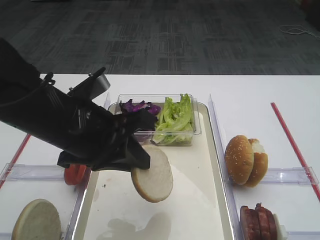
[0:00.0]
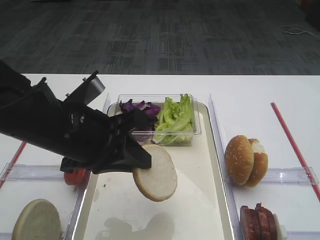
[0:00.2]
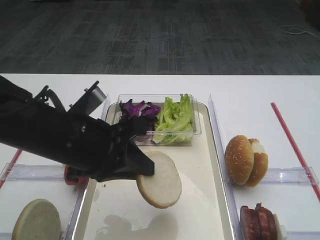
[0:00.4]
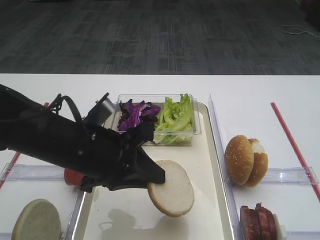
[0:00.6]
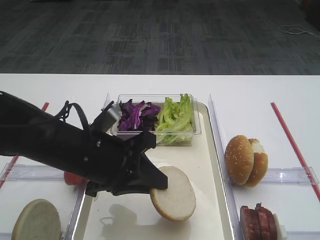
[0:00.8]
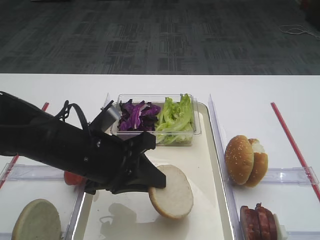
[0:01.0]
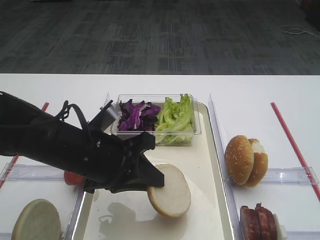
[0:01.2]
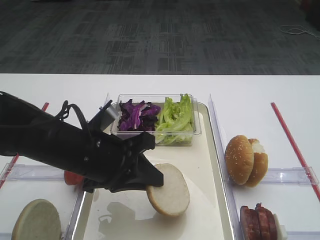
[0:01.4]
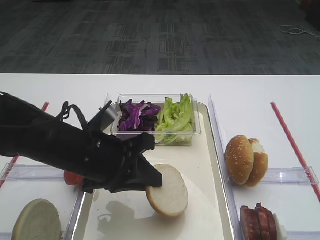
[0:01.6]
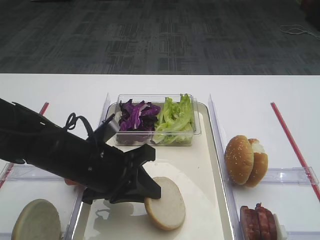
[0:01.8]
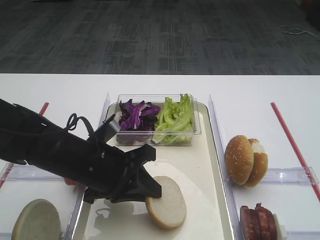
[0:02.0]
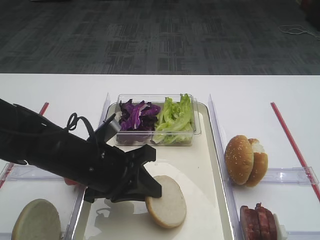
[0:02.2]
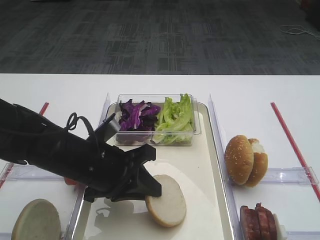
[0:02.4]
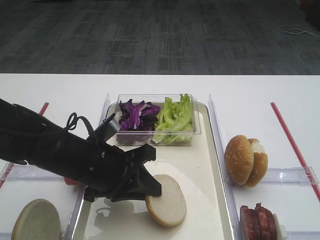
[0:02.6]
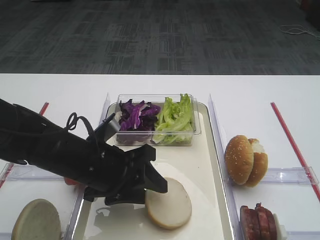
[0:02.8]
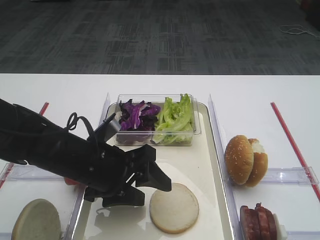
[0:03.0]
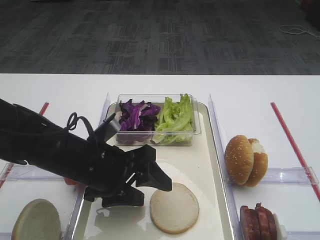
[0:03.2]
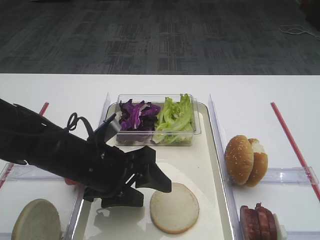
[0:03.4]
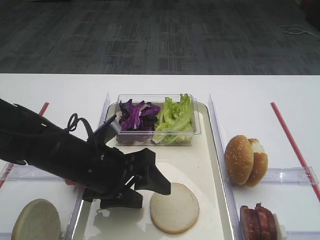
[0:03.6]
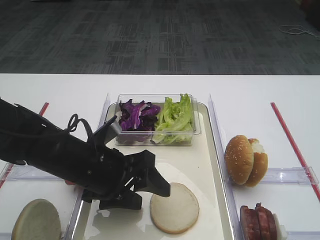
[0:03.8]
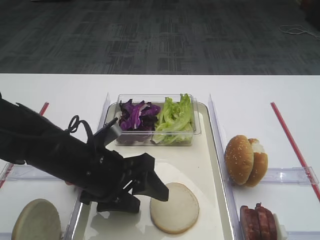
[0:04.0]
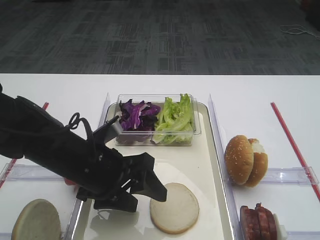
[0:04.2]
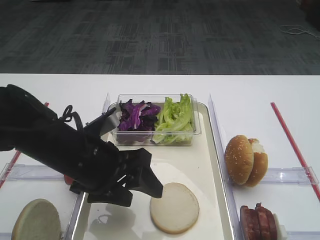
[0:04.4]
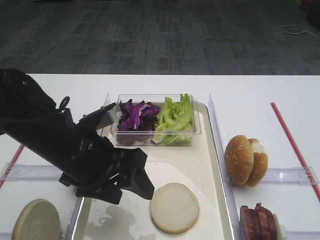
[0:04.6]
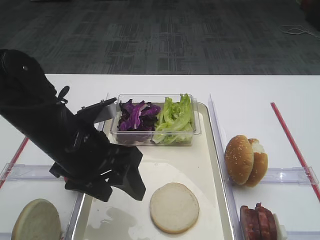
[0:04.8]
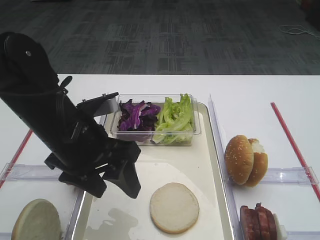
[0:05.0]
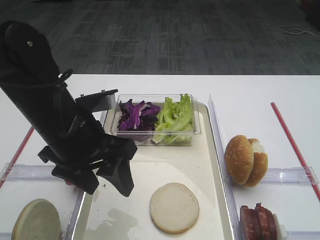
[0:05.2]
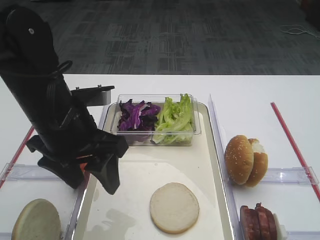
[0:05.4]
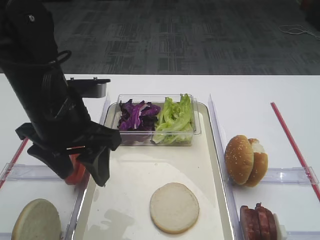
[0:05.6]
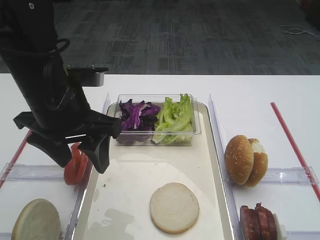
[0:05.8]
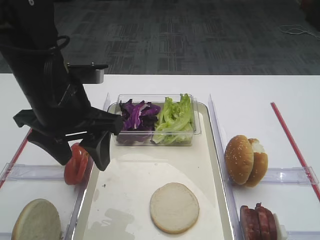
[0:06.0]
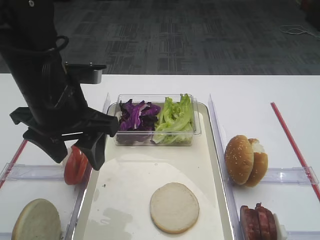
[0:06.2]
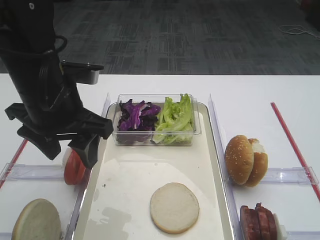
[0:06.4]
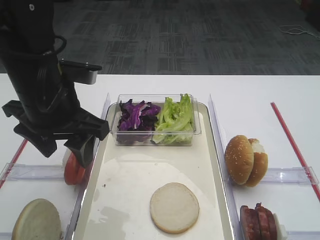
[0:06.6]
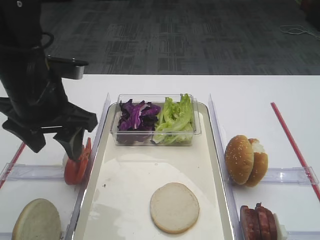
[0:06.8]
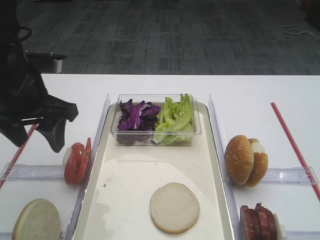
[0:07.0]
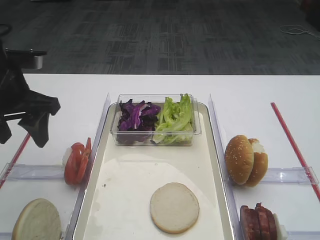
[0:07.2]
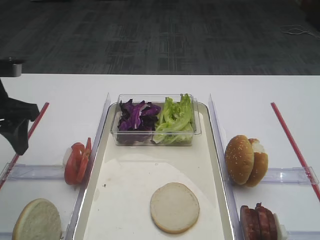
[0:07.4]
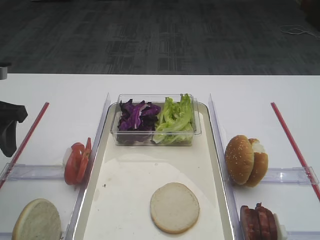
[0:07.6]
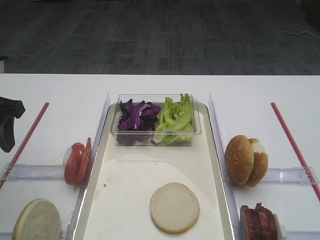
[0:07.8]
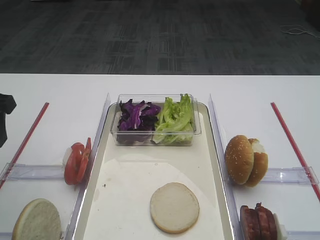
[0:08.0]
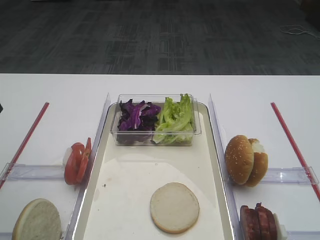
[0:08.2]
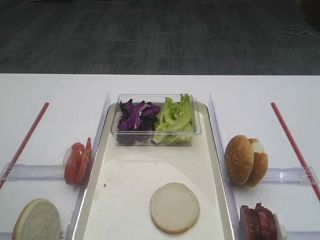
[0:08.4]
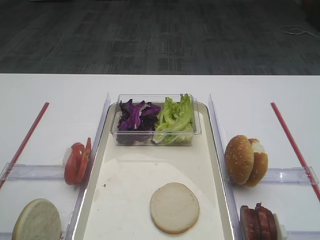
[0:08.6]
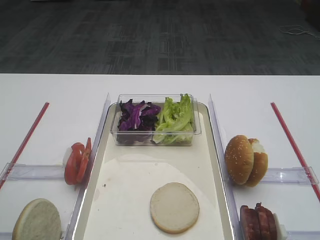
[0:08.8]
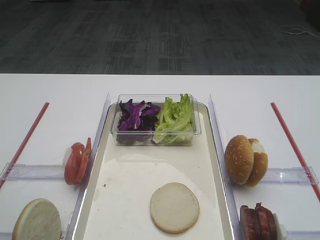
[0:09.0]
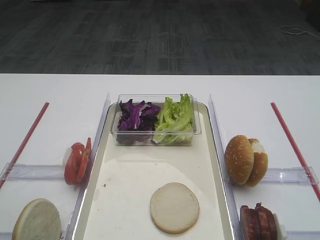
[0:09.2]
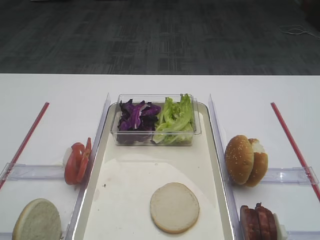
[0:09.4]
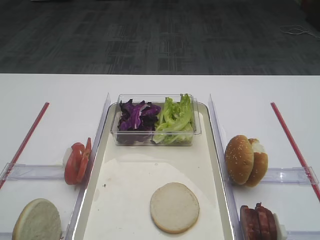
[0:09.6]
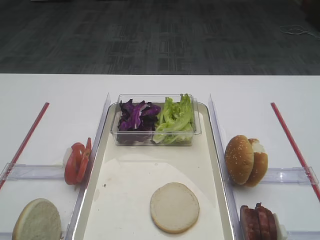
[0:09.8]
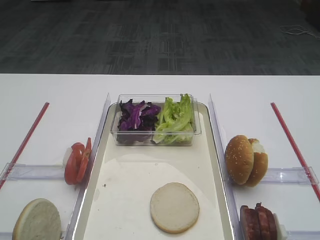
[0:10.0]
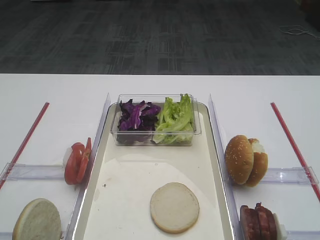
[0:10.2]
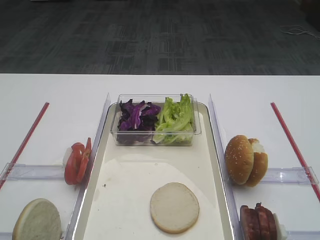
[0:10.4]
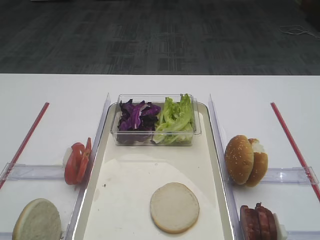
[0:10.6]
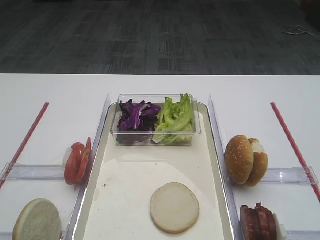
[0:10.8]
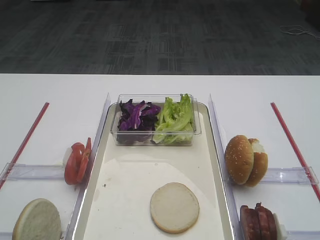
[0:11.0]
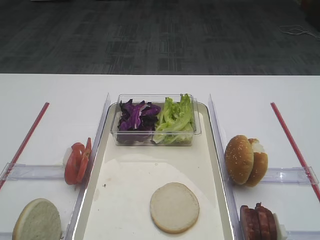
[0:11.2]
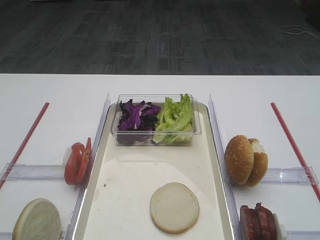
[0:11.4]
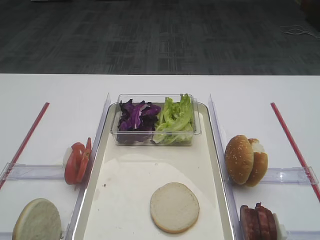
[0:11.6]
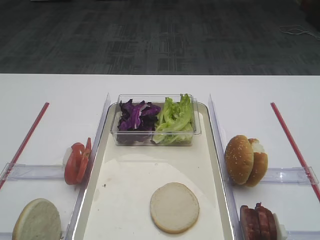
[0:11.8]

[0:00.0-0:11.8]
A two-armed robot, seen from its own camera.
Step, 0:00.0 to 0:03.8: Place the bread slice on the tray with the left gripper.
0:00.0 to 0:01.4: The left gripper moves downward, some 5 cm.
0:01.4 to 0:03.0: The left gripper opens up.
0:03.0 to 0:04.4: The grippers make only small movements.
0:04.4 to 0:06.0: The left gripper goes roughly 10 cm upward.
0:06.0 to 0:07.4: The left gripper moves to the left, approximately 15 cm.
0:07.4 to 0:08.8: The left gripper heads backward and upward, covering some 15 cm.

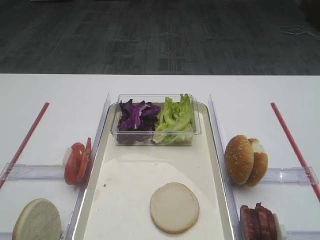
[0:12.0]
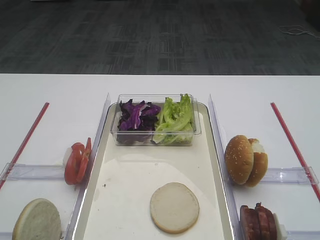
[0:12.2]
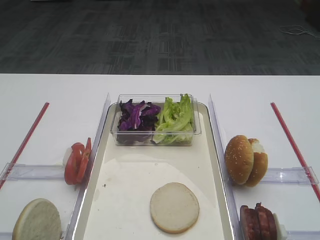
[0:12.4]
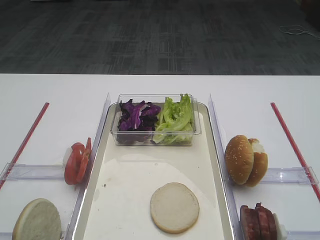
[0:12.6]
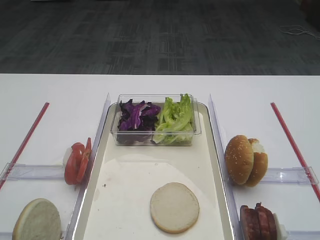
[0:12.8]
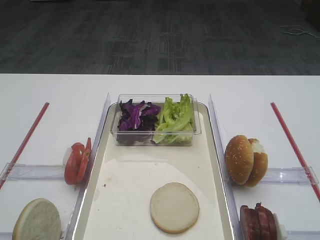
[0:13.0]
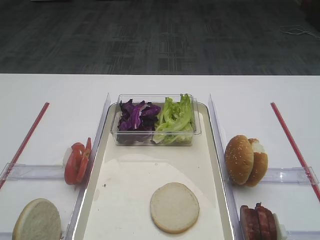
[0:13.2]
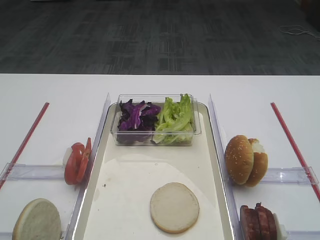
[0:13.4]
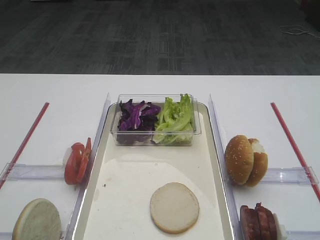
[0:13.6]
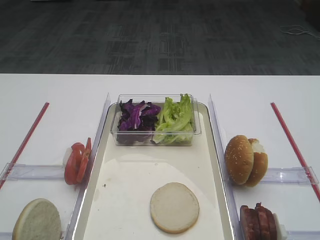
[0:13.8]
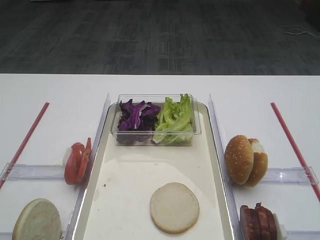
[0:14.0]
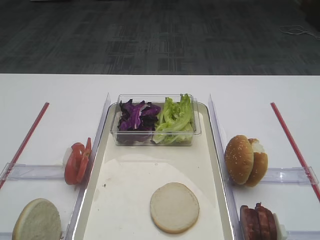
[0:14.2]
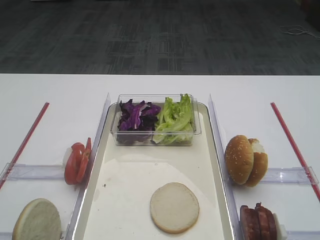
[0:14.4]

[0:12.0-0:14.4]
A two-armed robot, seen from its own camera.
0:12.0 to 0:14.4: Both grippers stay about where they are.

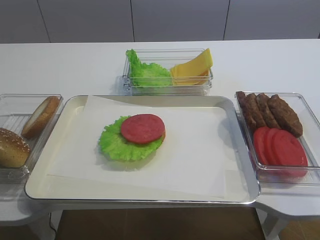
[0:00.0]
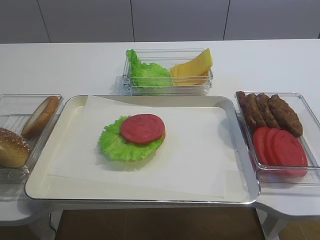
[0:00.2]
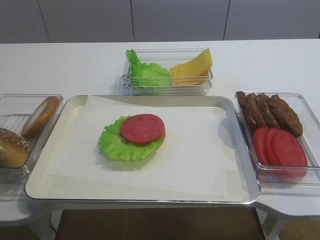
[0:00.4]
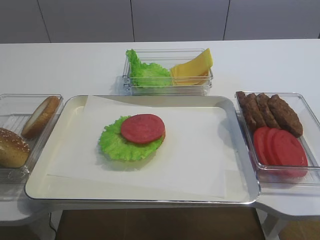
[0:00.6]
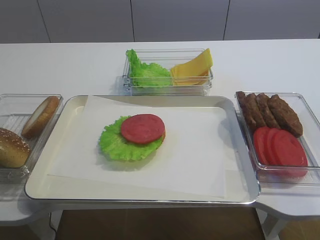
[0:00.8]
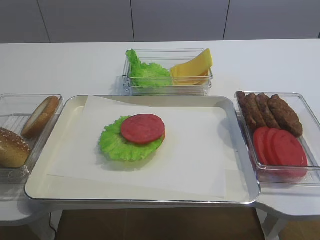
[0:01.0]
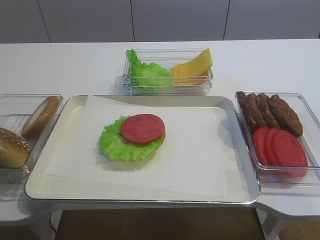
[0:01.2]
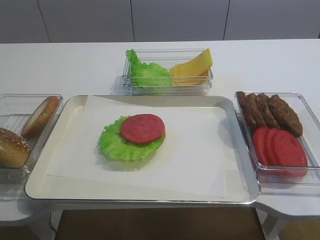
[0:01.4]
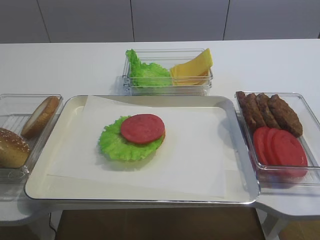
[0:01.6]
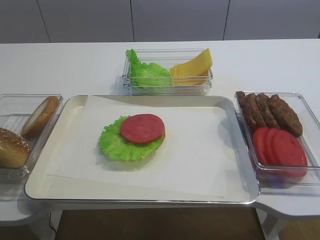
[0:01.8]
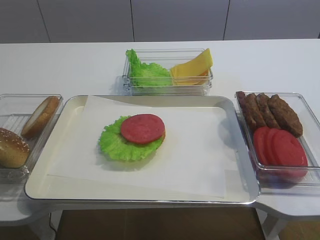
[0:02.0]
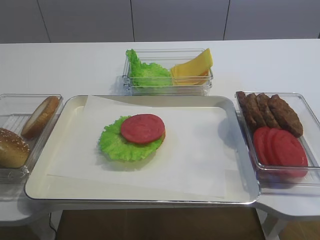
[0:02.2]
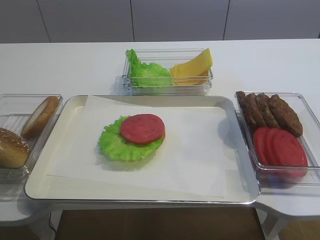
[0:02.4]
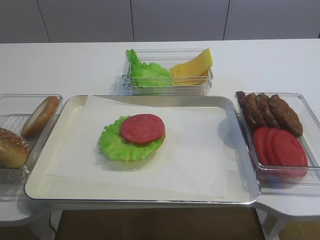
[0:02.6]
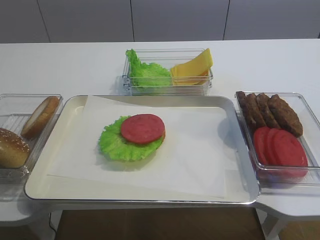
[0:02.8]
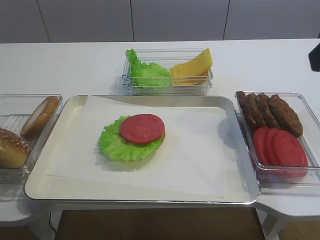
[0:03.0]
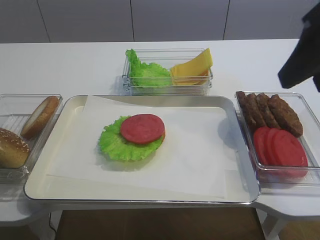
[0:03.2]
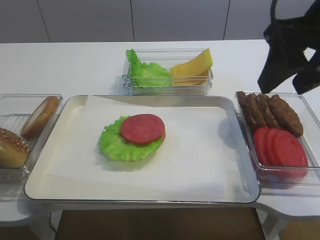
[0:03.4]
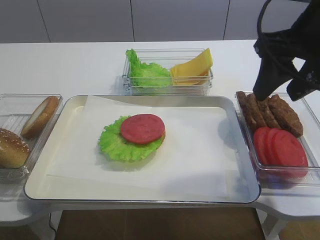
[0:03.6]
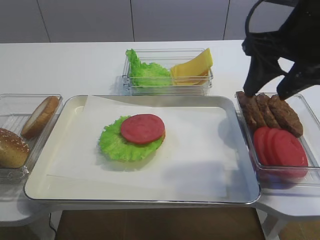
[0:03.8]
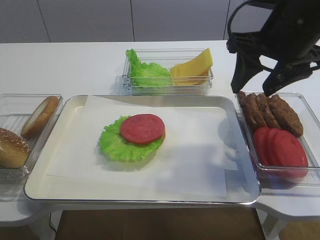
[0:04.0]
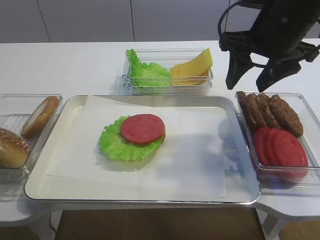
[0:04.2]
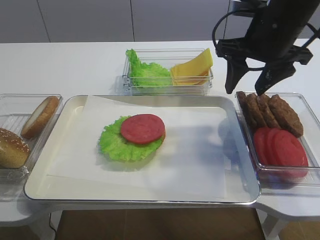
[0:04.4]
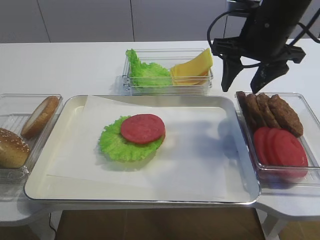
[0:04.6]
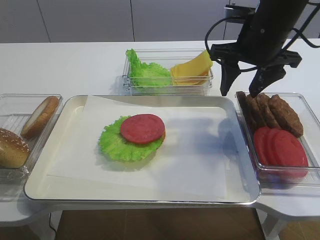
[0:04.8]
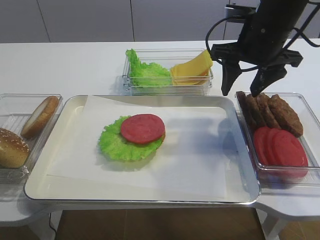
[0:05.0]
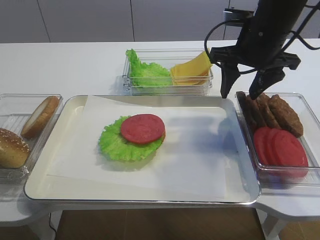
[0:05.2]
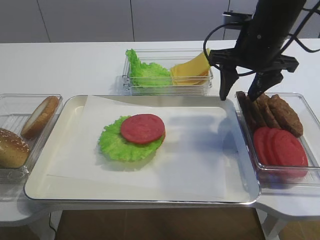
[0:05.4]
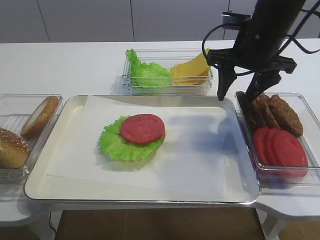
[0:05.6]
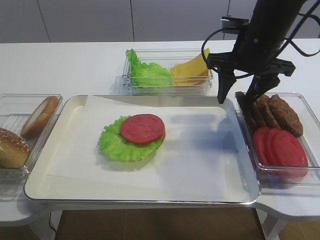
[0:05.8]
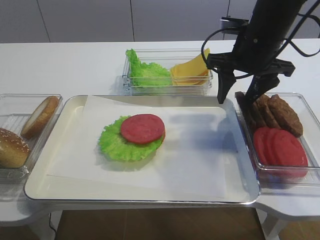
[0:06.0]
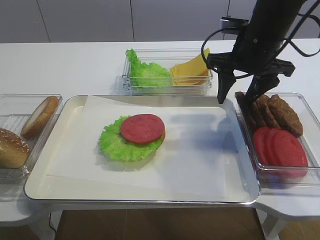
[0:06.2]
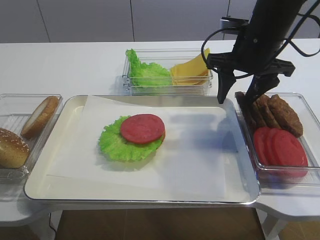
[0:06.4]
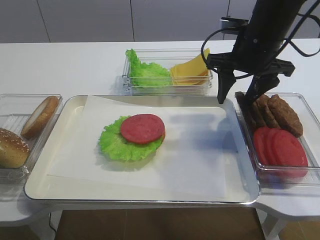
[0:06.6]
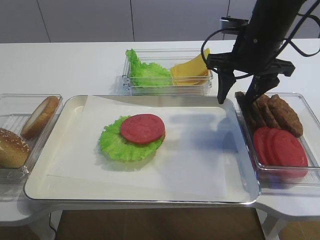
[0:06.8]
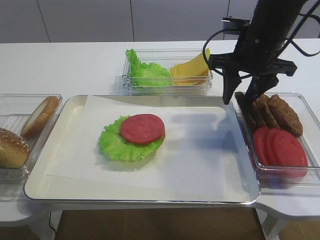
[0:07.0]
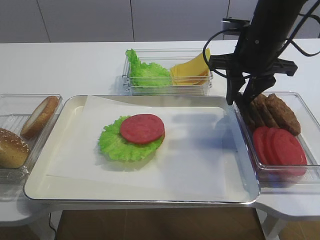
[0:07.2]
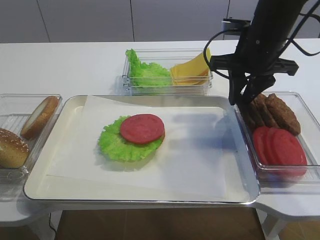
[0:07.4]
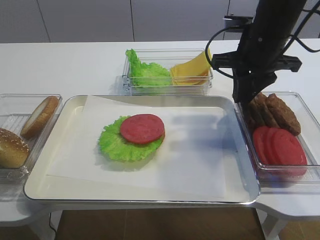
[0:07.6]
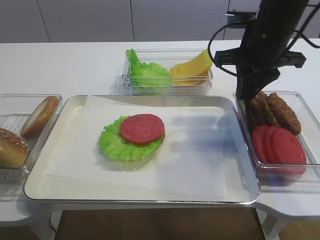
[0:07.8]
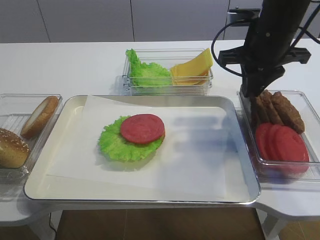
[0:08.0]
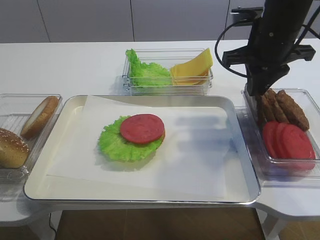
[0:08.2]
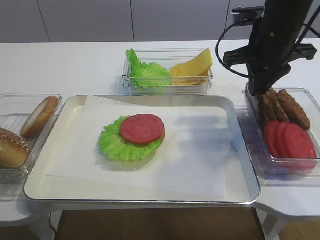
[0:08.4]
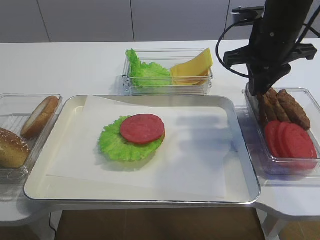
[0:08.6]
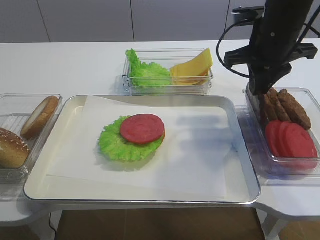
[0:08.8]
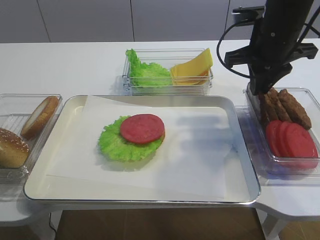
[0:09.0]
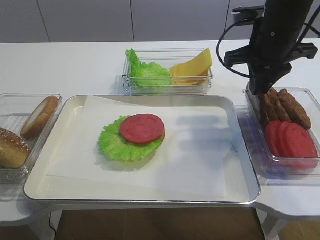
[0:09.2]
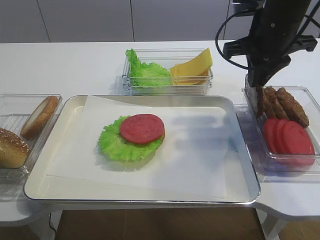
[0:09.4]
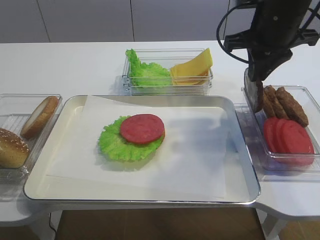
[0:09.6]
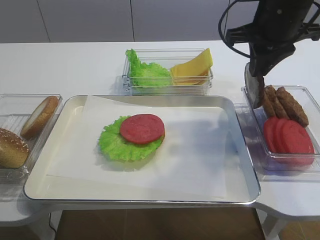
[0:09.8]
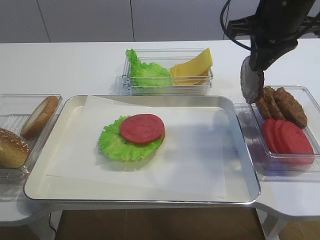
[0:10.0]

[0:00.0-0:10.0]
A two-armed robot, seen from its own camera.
Step, 0:00.0 to 0:09.8: Pick up the cutlet with the right gripper.
0:01.4 to 0:02.8: The right gripper heads forward and upward, covering roughly 20 cm.
0:02.8 to 0:04.2: The right gripper shifts about 20 cm forward, downward and to the left.
0:04.2 to 0:05.8: The right gripper changes place by about 5 cm.
0:05.8 to 0:07.2: The right gripper closes up.
0:07.2 to 0:08.6: The right gripper closes up.
0:08.6 to 0:10.0: The grippers make only small movements.
